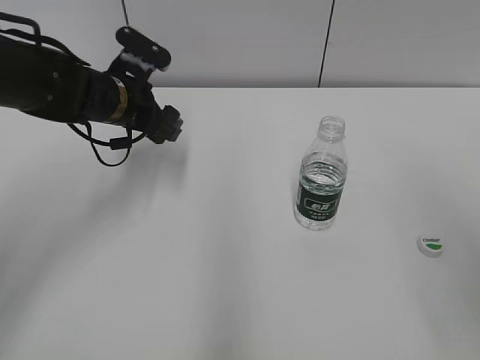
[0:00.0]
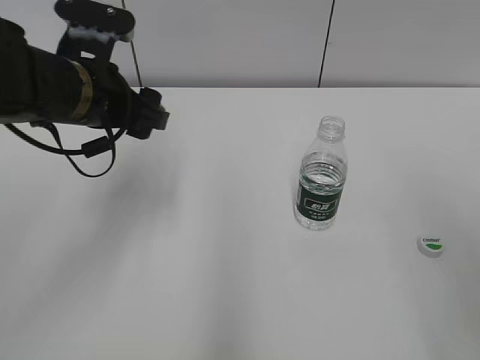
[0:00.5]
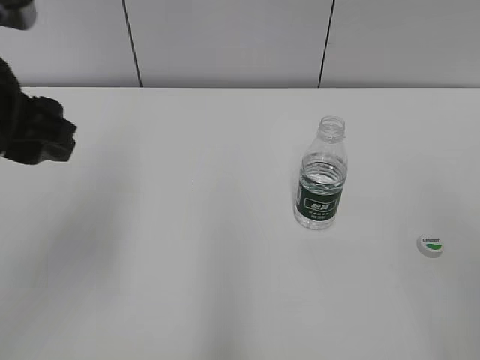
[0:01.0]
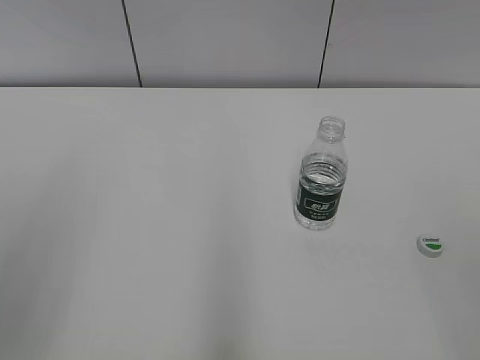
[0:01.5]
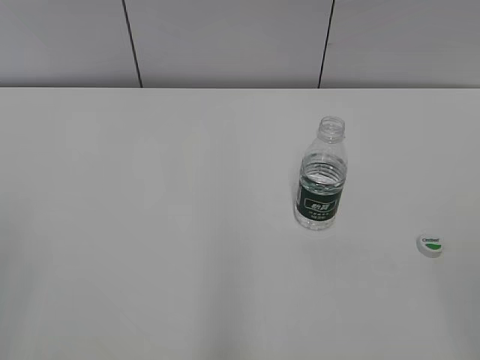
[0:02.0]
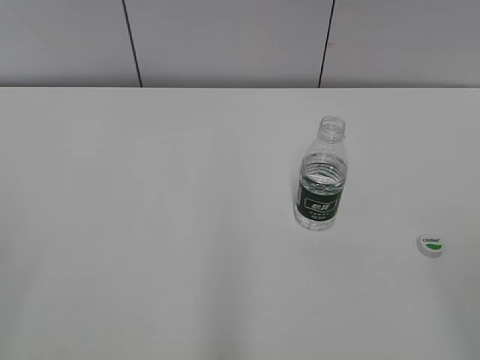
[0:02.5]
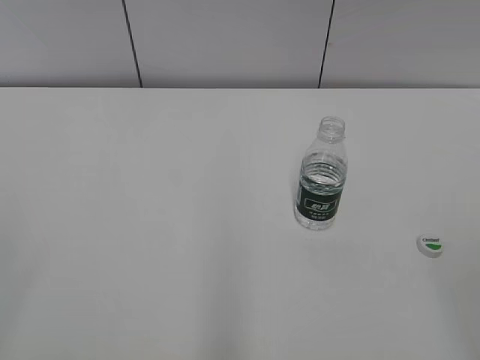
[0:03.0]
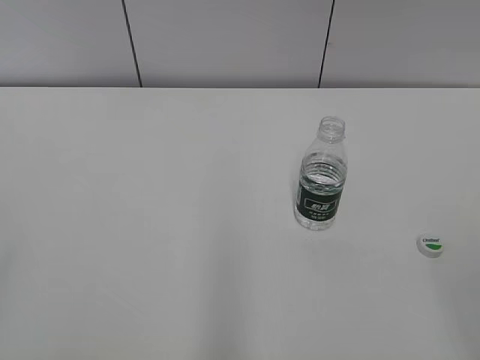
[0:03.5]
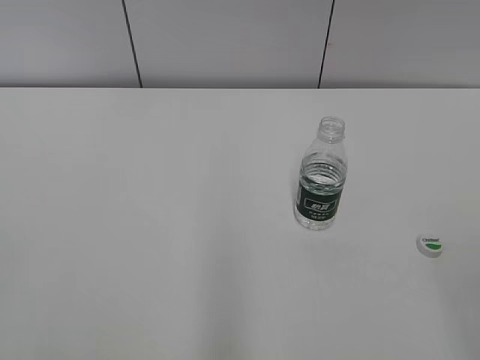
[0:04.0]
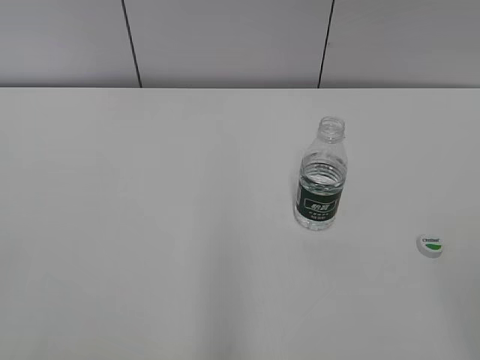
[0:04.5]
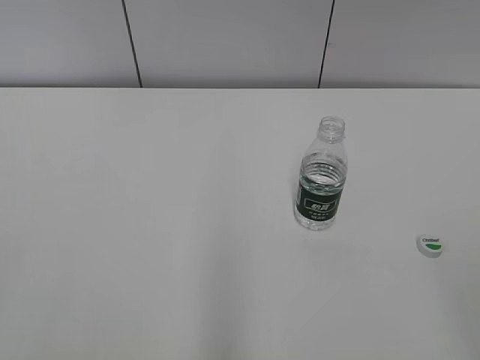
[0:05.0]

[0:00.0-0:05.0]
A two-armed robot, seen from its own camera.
0:00.0 to 0:02.5: The left gripper is displaced backward and to the left by about 40 cm, and closes up. Meanwhile the right gripper goes roughly 15 cm backward.

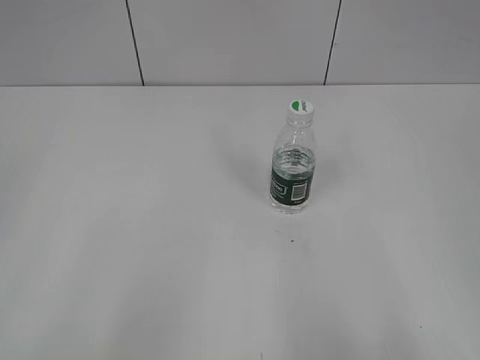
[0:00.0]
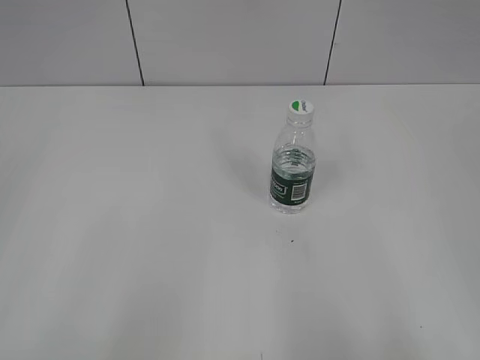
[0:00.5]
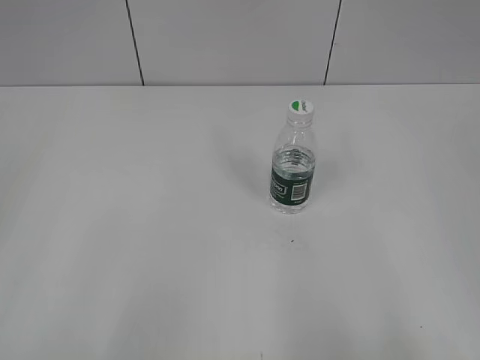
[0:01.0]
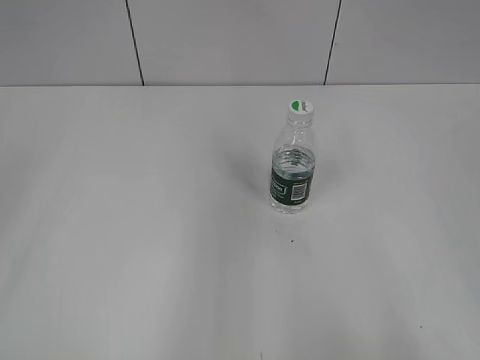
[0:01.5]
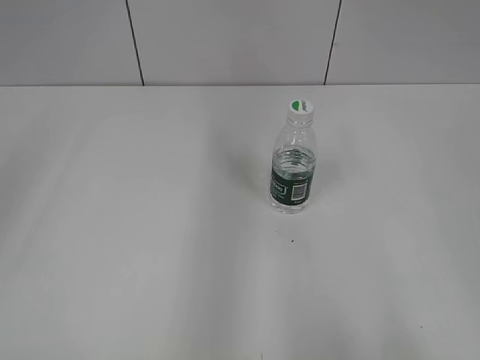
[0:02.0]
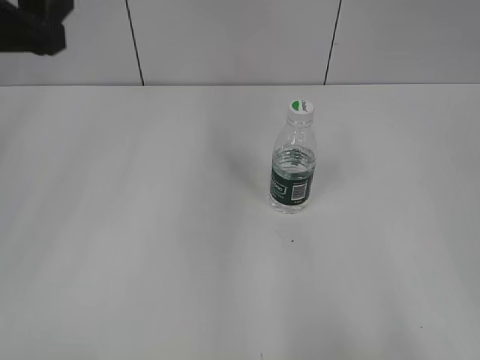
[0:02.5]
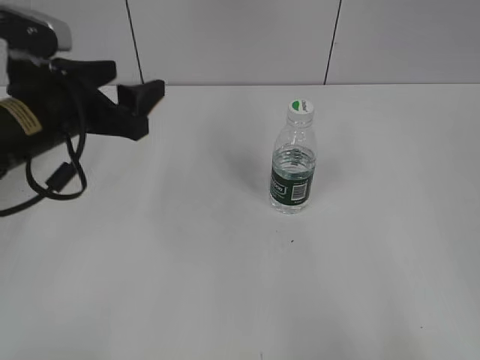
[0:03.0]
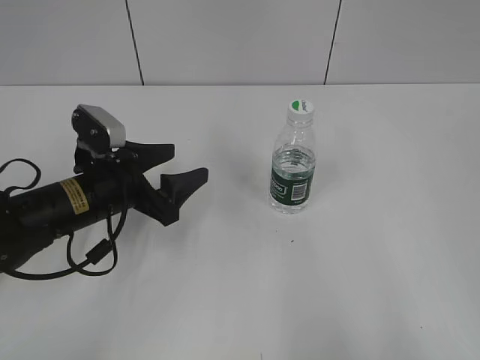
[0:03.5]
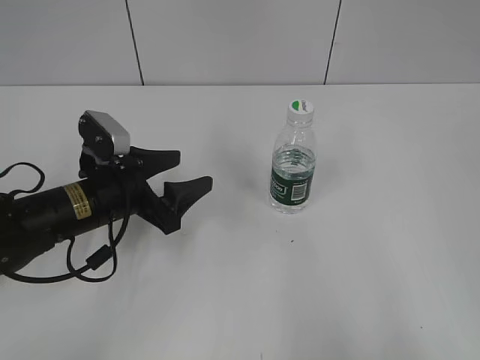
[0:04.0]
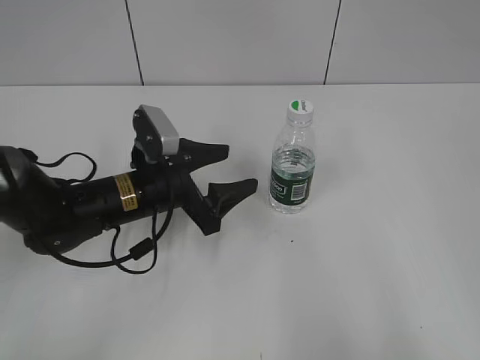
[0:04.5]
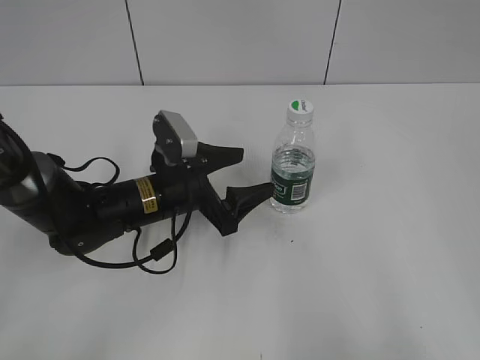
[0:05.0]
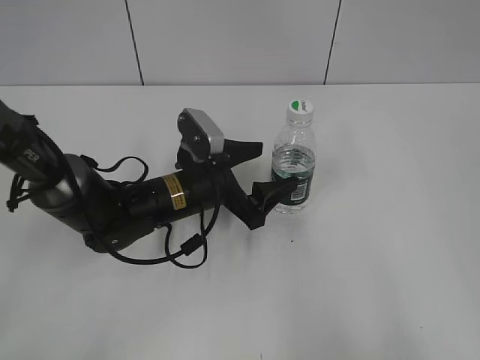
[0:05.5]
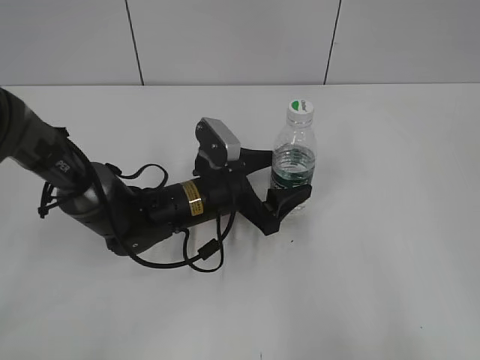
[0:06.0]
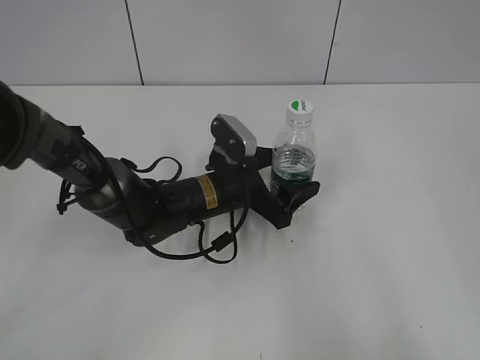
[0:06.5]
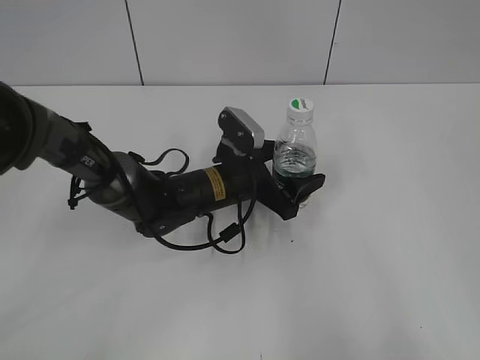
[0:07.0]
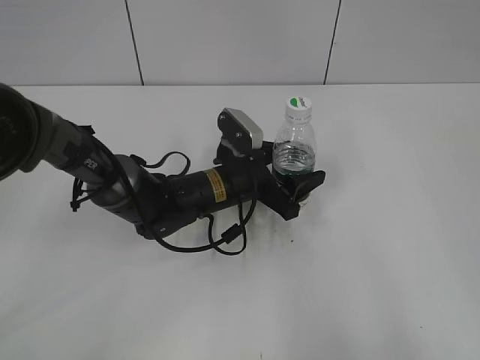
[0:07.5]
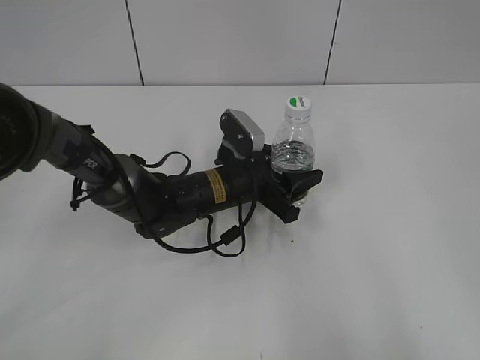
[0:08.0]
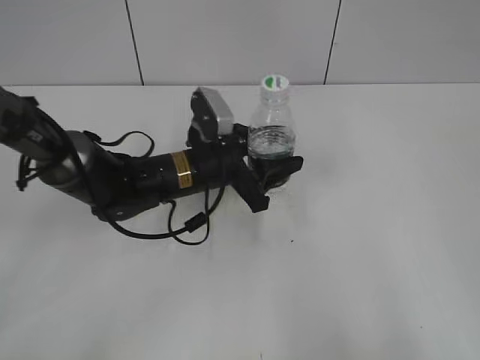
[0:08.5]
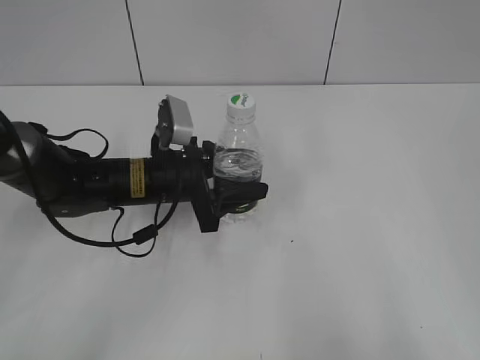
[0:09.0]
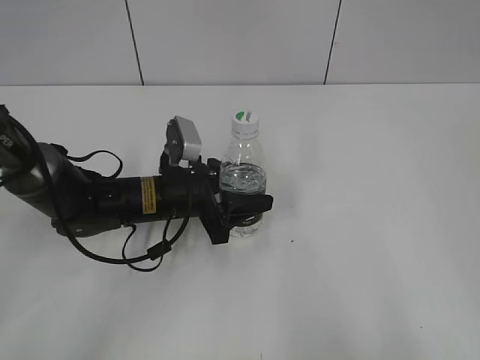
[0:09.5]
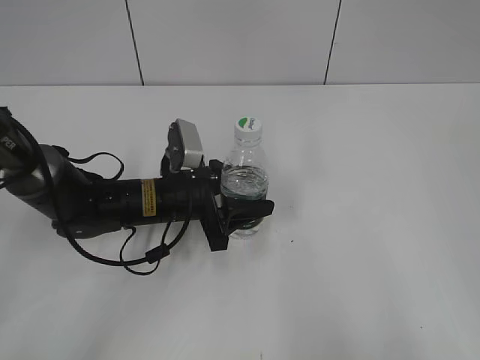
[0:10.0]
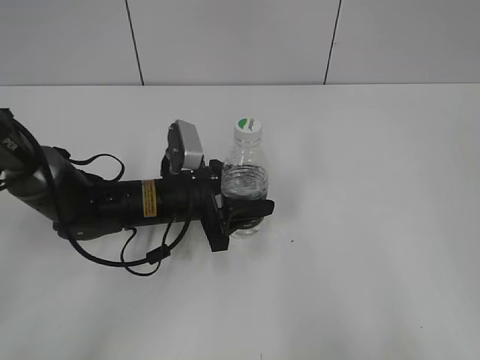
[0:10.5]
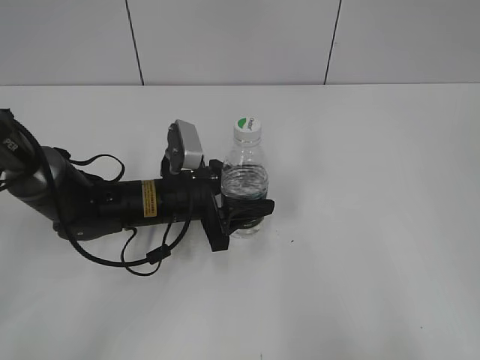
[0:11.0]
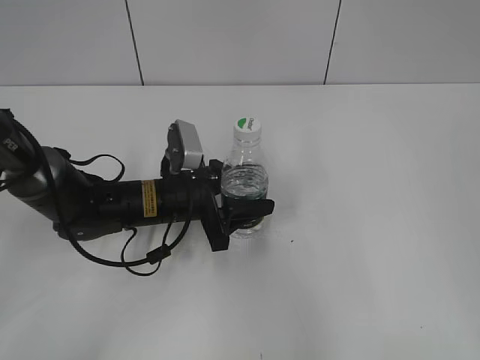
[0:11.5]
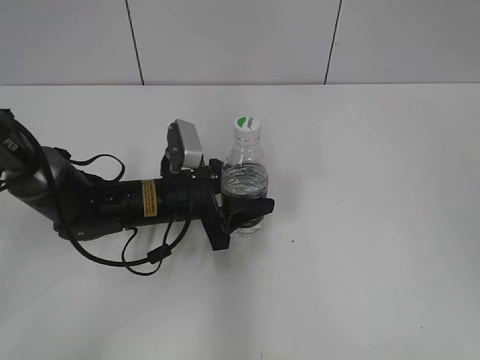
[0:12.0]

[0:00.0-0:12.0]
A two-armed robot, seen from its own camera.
Step, 0:00.0 to 0:07.5: Grasp the bottle and move it to the center of the table with the left gripper.
Step, 0:08.0 to 0:10.0: Lift the bottle and move it to the center of the table with the left gripper.
0:02.0 to 0:04.0: The left gripper travels downward, to the right and forward by roughly 35 cm.
0:04.0 to 0:06.0: The left gripper travels to the right by some 10 cm.
0:06.0 to 0:08.0: The left gripper closes its fingers.
0:08.0 to 0:10.0: The left gripper travels to the left by some 10 cm.
0:10.0 to 0:12.0: The right gripper moves forward and upward, about 20 cm.

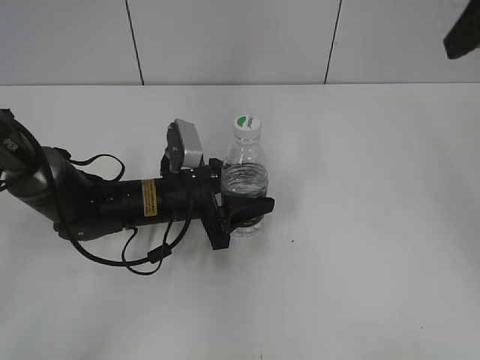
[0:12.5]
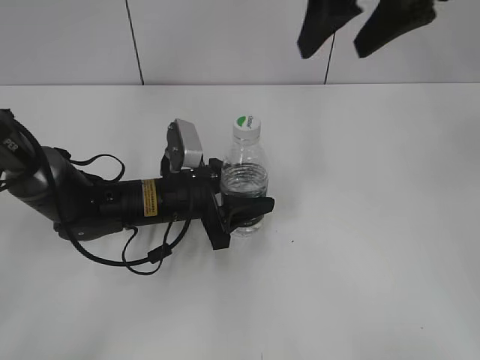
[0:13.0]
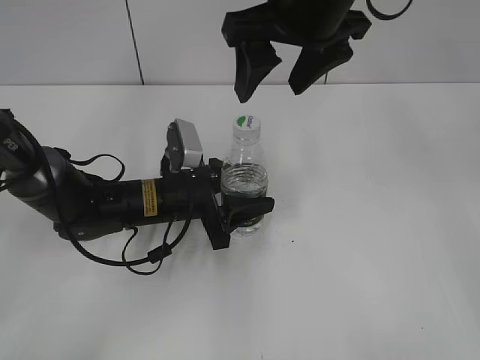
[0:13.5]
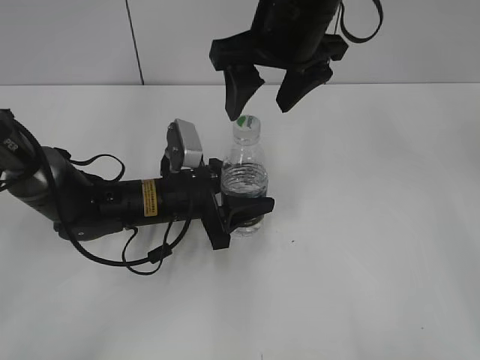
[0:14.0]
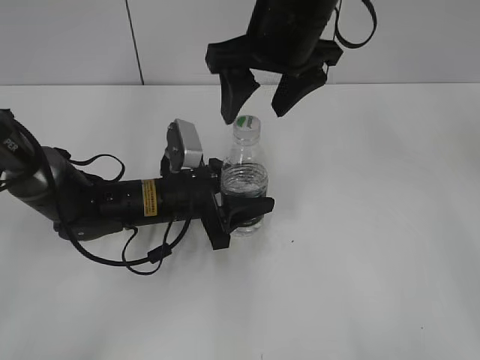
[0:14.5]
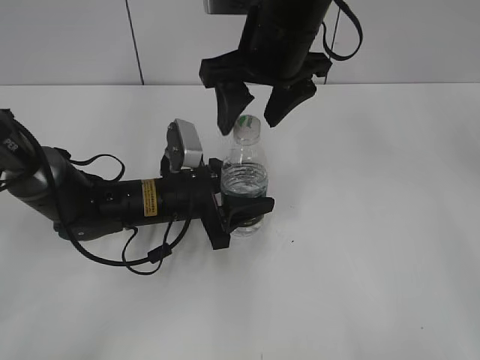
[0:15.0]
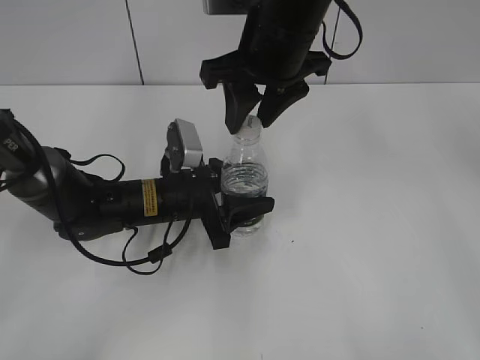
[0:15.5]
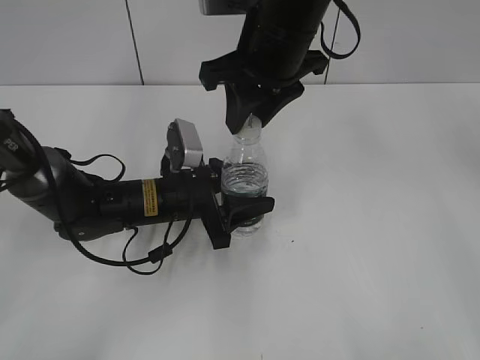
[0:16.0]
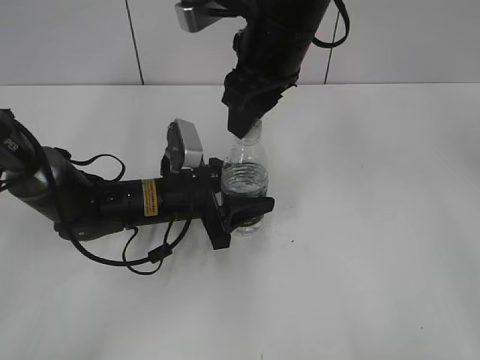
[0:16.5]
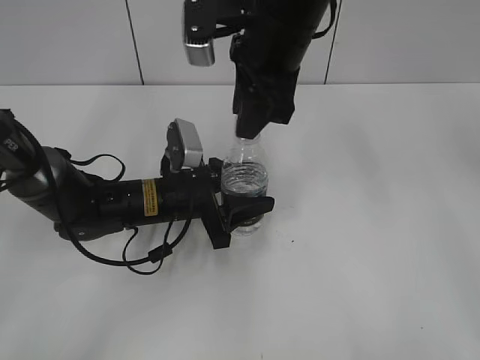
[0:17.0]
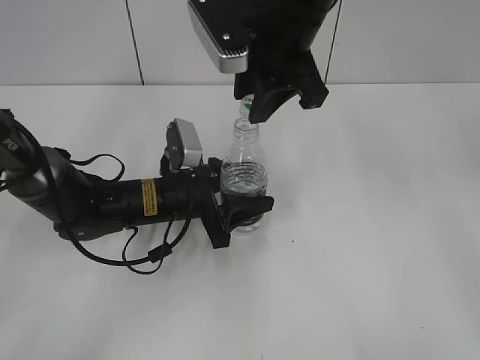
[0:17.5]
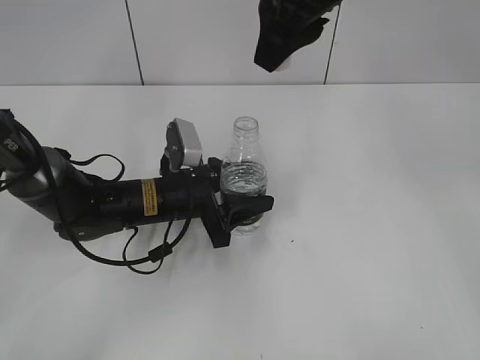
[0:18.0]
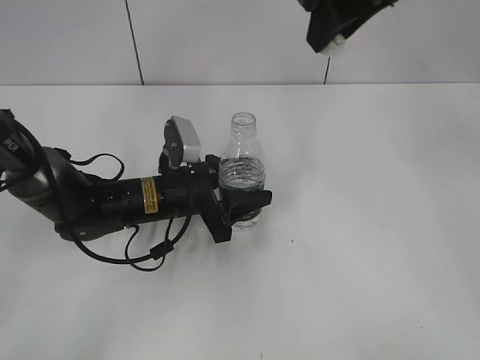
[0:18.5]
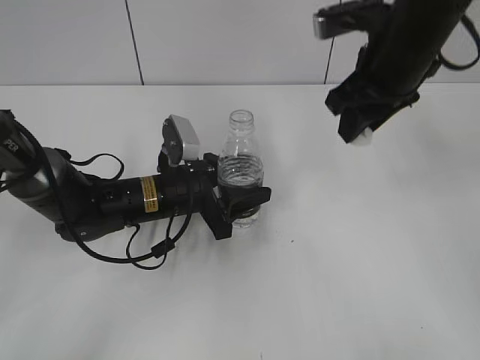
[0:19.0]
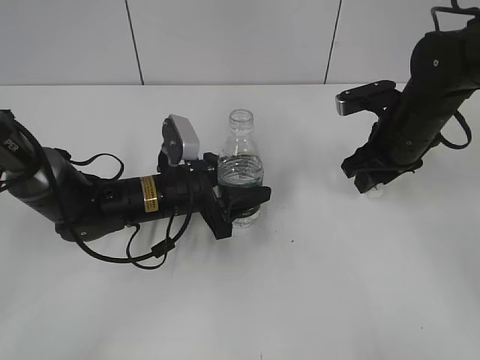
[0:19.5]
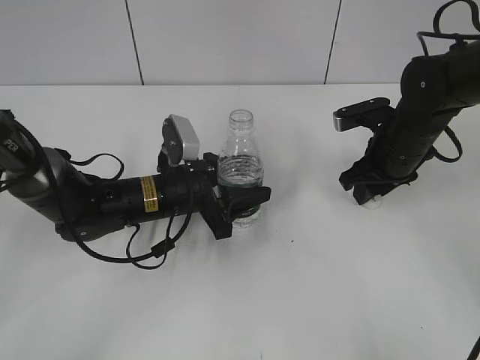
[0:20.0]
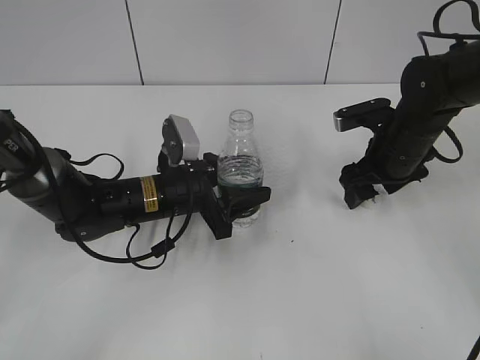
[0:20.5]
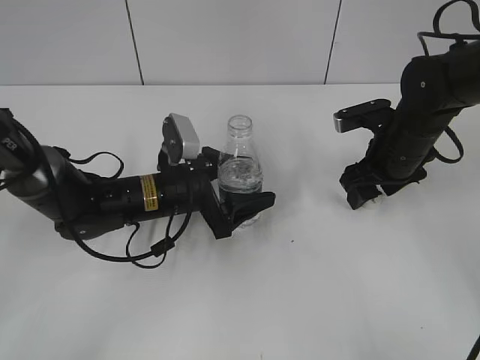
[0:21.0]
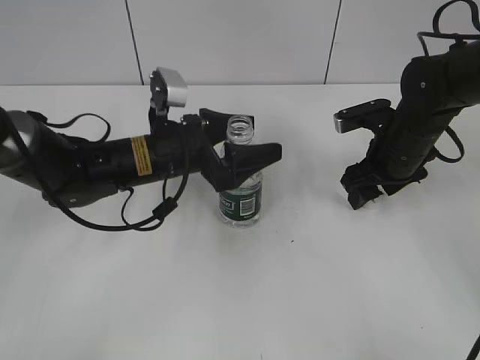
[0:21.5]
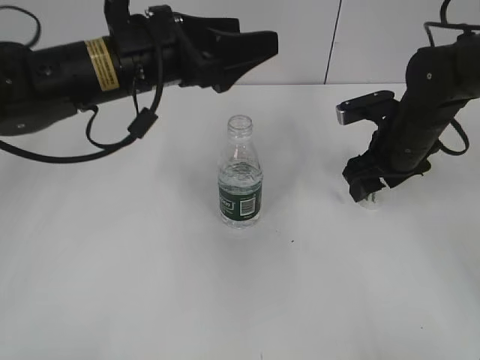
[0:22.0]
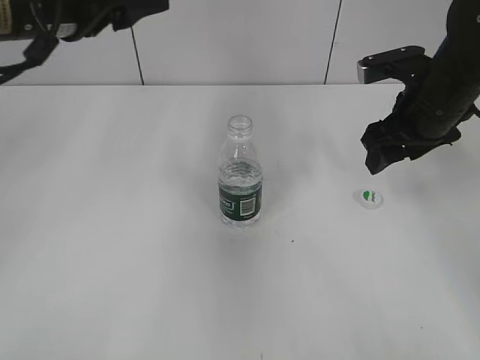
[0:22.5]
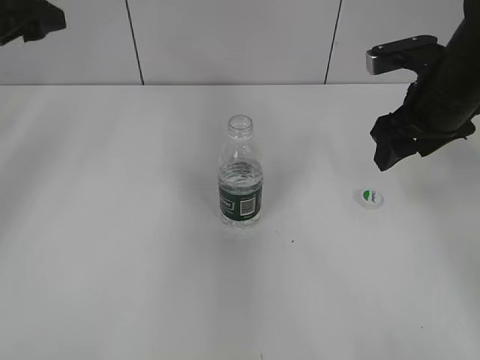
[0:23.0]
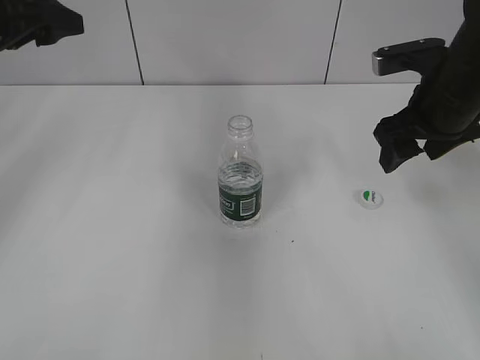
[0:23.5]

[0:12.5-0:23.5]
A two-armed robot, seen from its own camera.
Step, 0:12.5 to 0:17.5: Unscrew the bottle cap with the right gripper while holding the bottle with the left gripper.
Step, 0:18.0 to 0:20.0: Place the bottle cap on the table with the right gripper.
Step, 0:21.0 to 0:21.5: Place the bottle on the table with the left gripper.
0:12.5 to 0:14.5: The right gripper is displaced to the left and downward by roughly 20 cm.
0:14.5 to 0:16.0: The right gripper closes its fingers.
0:16.0 to 0:18.0: The right gripper shifts some 10 cm upward.
0:18.0 to 0:20.0: The right gripper heads downward and to the right, covering approximately 30 cm.
0:20.0 to 0:21.5: The right gripper opens its fingers, while the left gripper goes some 5 cm upward, and opens its fingers.
0:21.5 to 0:23.5: The left gripper heads to the left and upward, covering roughly 25 cm, while the right gripper heads upward, covering some 10 cm.
